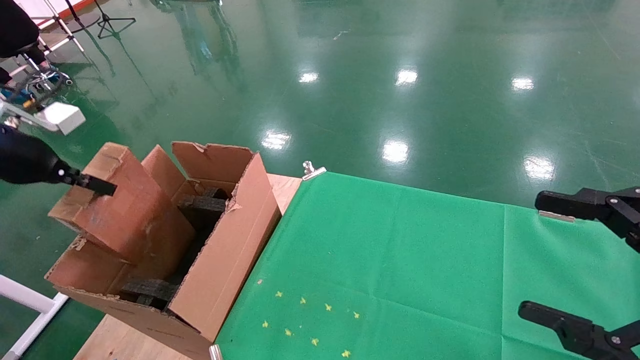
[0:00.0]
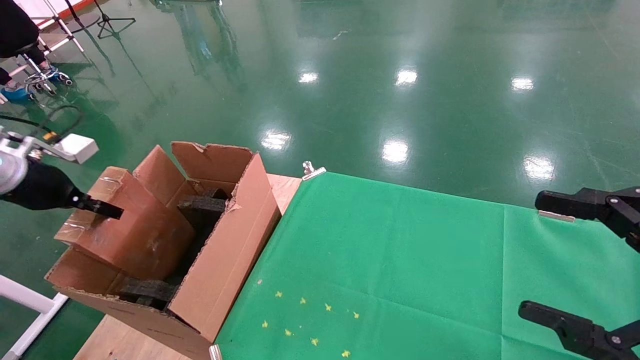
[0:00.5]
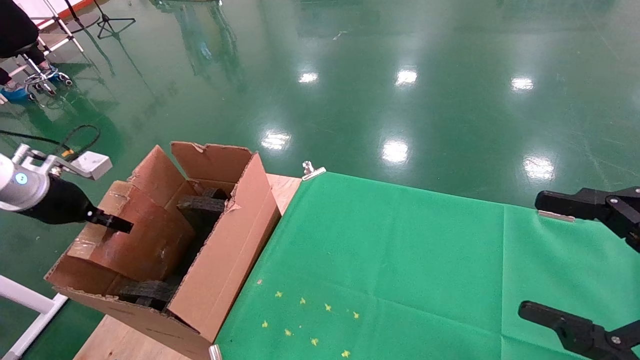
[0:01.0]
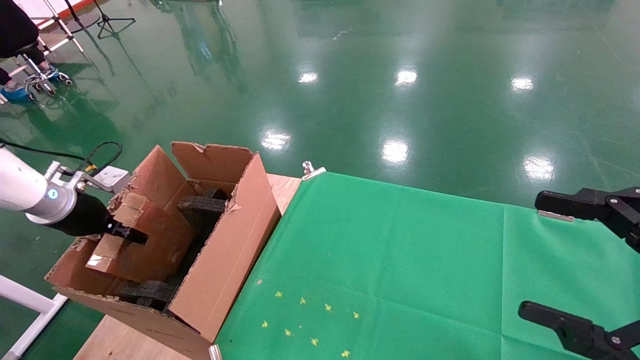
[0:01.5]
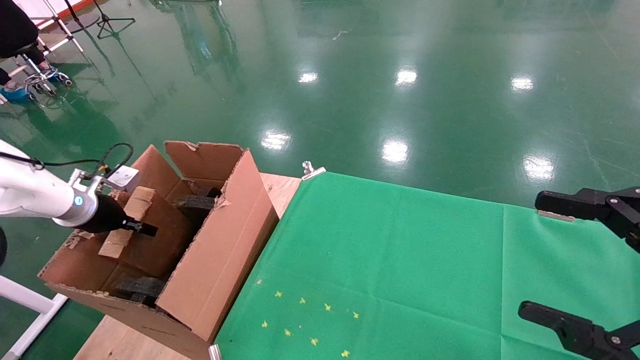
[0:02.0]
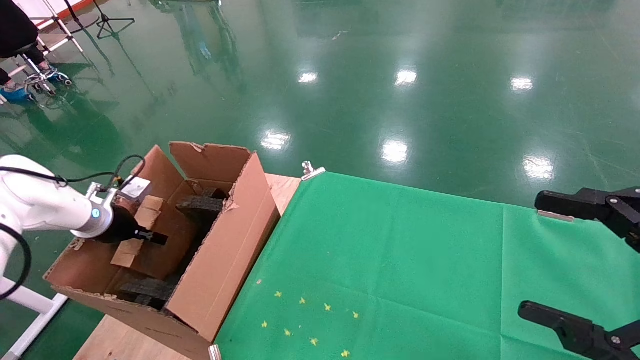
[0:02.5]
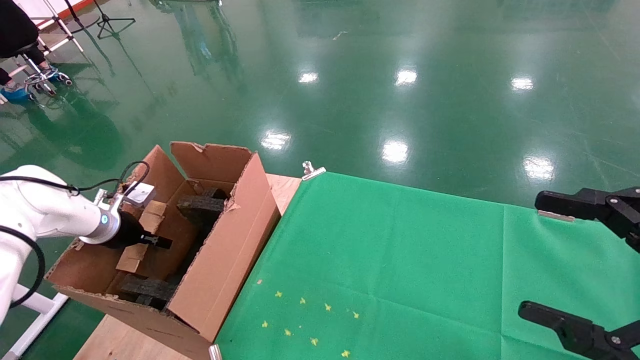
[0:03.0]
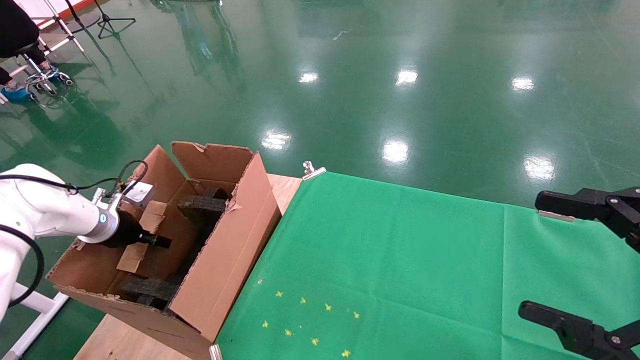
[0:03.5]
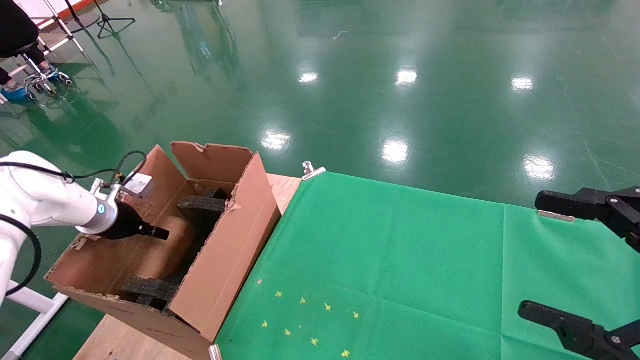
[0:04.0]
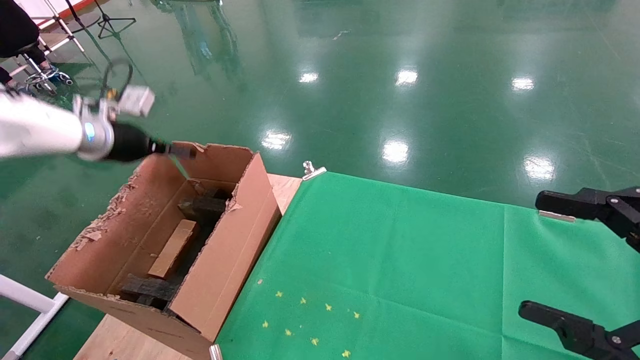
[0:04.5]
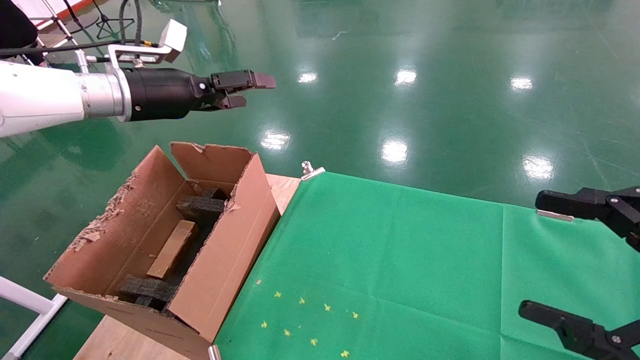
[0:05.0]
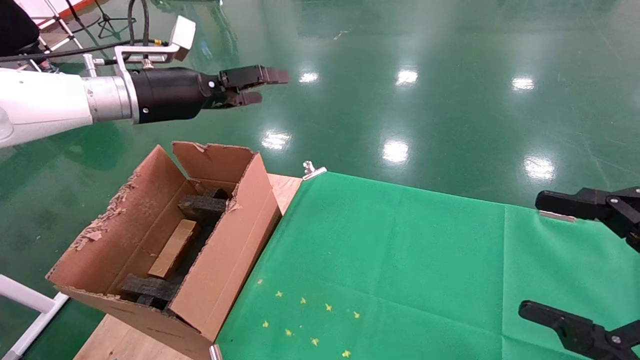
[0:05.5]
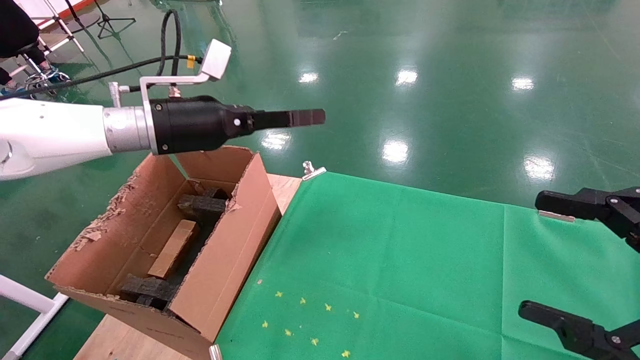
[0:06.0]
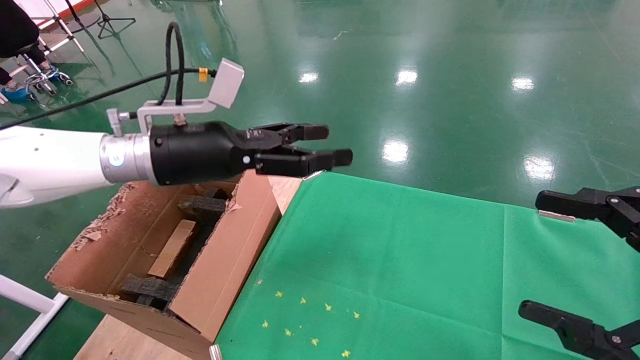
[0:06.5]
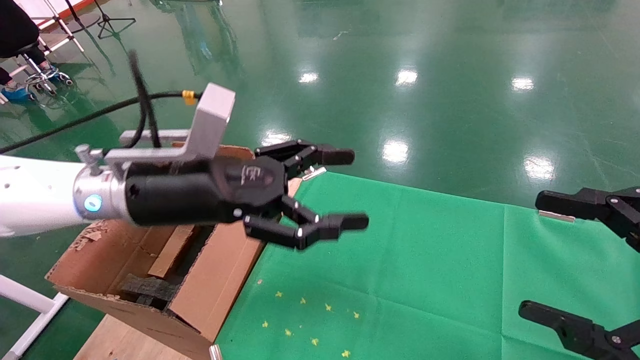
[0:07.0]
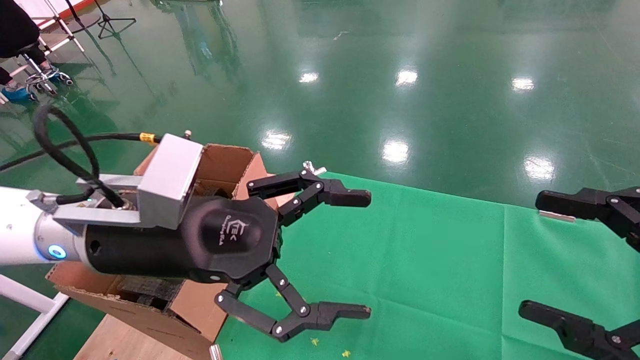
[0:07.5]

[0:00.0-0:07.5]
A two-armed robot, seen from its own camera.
Task of the whole recording: using a robotic arm to pick up a cardboard box and palace it the carton.
Step, 0:00.0 to 0:04.5: Place the mouse and the power cord paper box into the container.
0:00.0 to 0:02.0: The left gripper is displaced downward and forward by about 15 cm.
0:02.0 to 0:04.0: The left gripper opens its fingers.
0:04.0 to 0:05.5: The left gripper moves upward and to the right, approximately 25 cm, and opens its fingers.
0:05.5 to 0:07.5: The left gripper heads backward, to the right and downward, covering roughly 25 cm.
